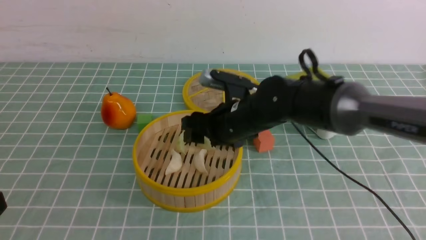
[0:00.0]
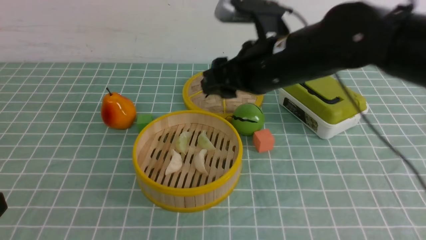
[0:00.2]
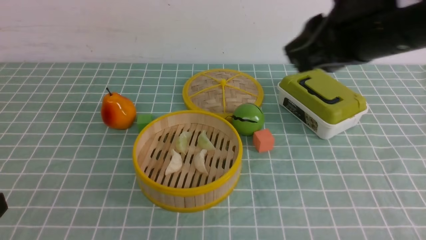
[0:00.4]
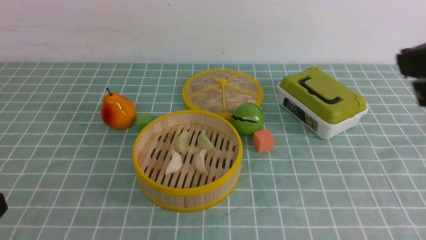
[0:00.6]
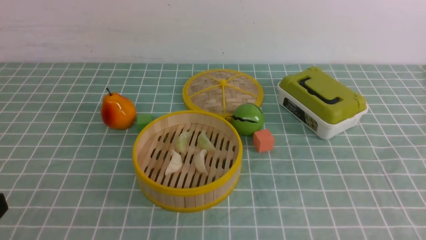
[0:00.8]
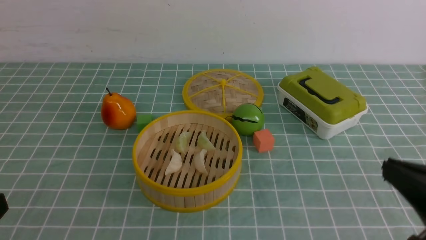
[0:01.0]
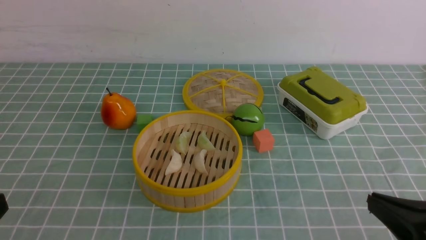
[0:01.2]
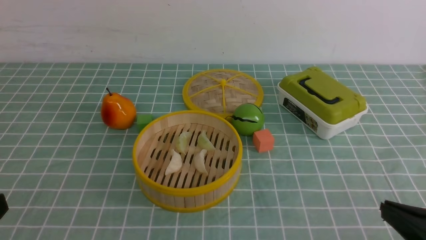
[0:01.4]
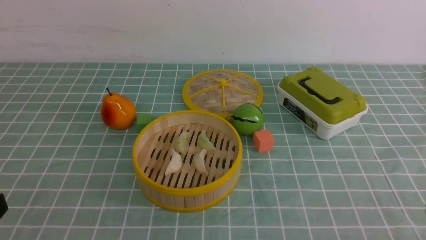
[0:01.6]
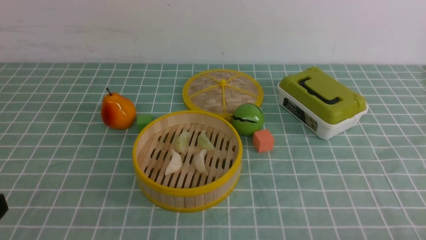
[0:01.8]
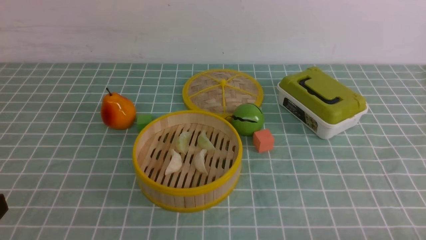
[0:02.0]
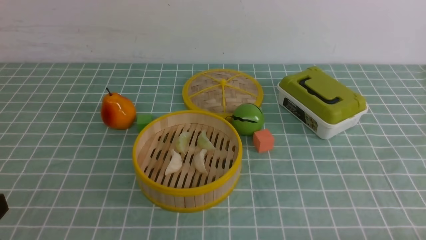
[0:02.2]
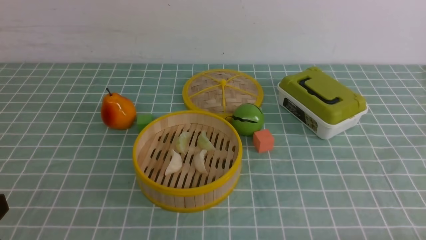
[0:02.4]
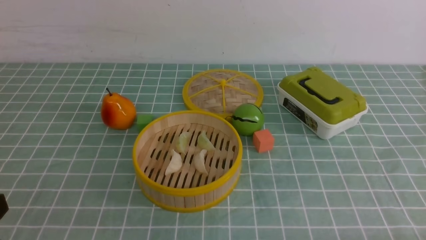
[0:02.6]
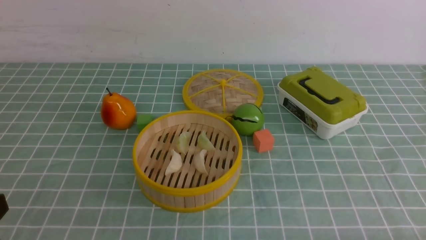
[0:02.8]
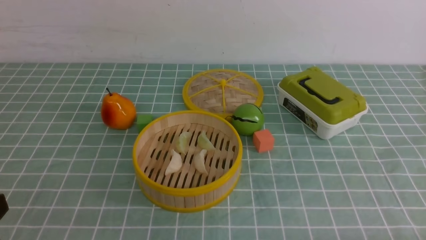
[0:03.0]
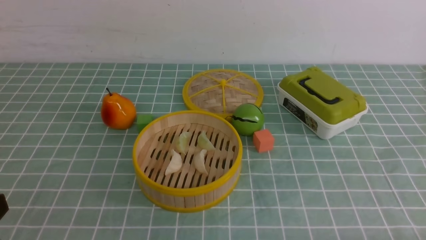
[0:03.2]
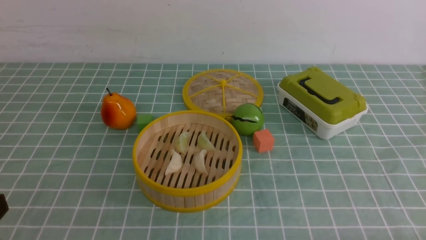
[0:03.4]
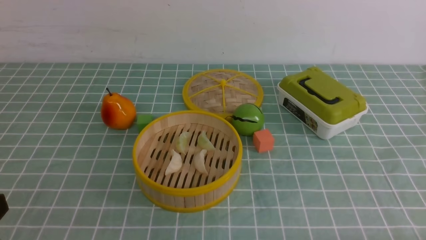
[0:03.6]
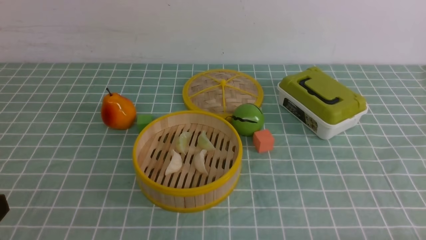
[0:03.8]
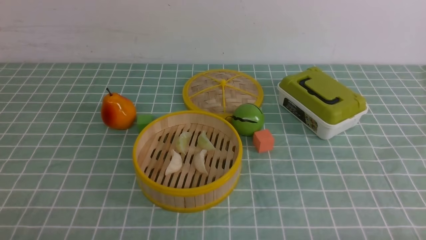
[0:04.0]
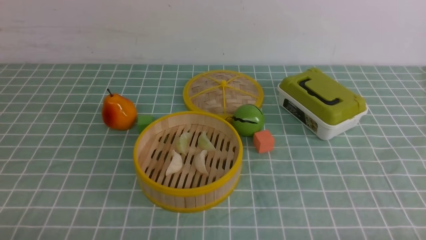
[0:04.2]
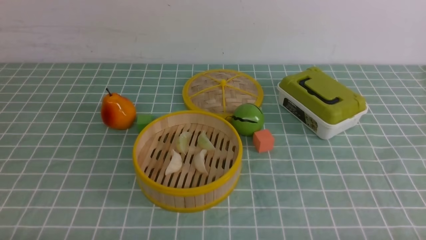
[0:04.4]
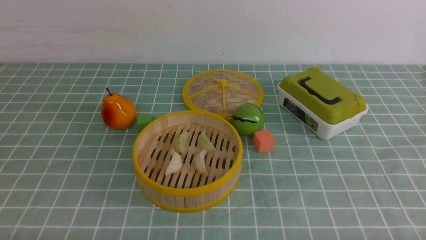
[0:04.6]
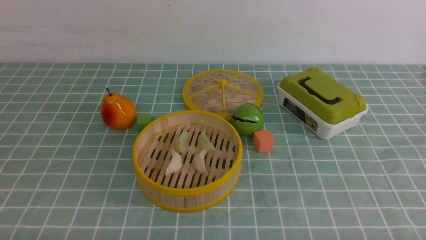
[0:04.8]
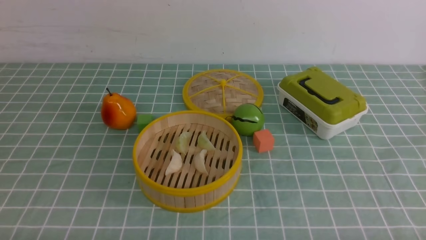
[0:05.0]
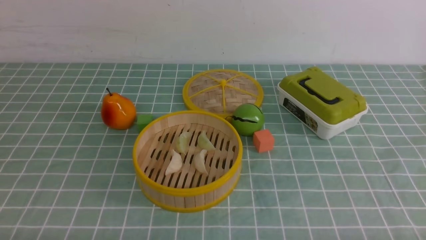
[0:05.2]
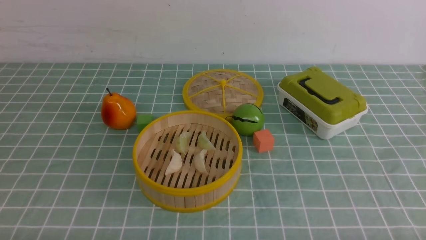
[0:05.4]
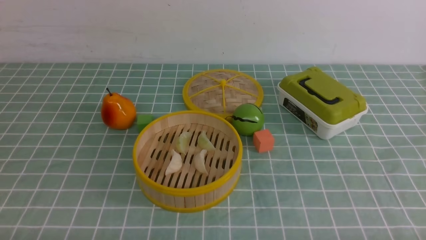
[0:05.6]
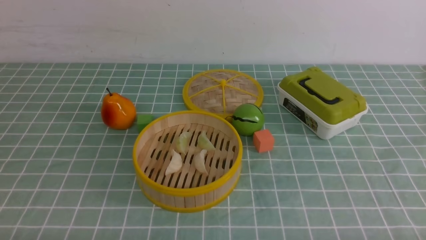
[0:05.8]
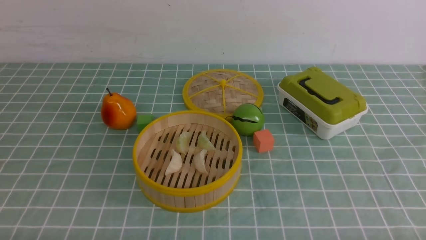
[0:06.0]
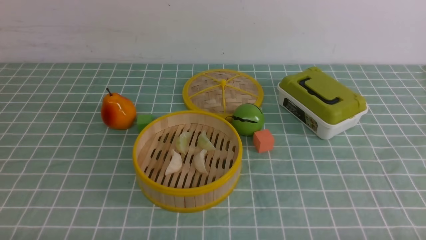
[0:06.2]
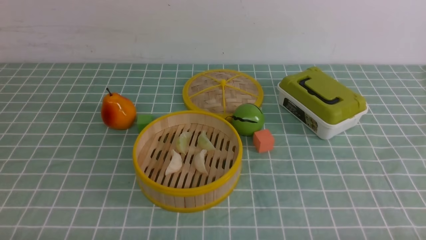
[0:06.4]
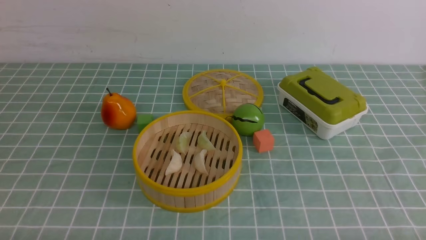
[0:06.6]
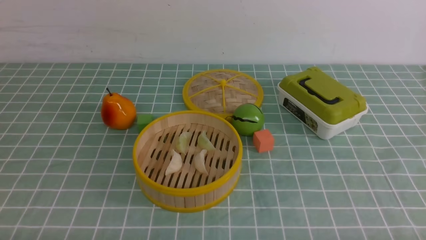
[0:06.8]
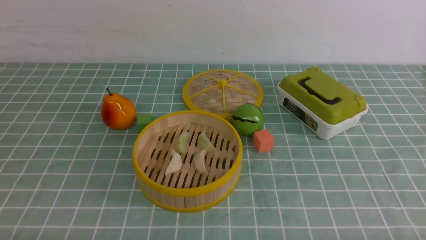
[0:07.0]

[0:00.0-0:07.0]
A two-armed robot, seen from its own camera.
Task of the whole recording: put the dumplings into the steamer on the table with the blue tablecloth.
0:00.0 to 0:01.4: The right gripper moves backward and to the right, roughly 35 cm, and closes.
0:01.4 to 0:02.8: The right gripper goes about 10 cm downward and to the right.
0:05.6 to 0:07.0: Both grippers stay put.
